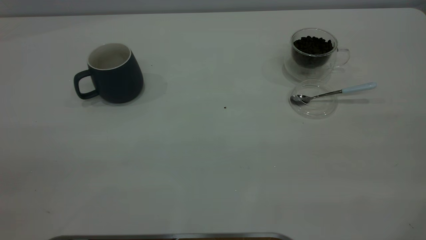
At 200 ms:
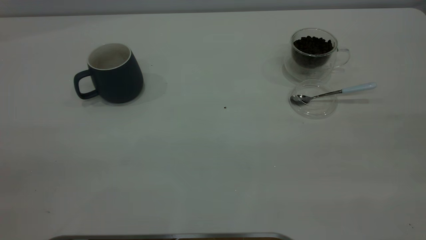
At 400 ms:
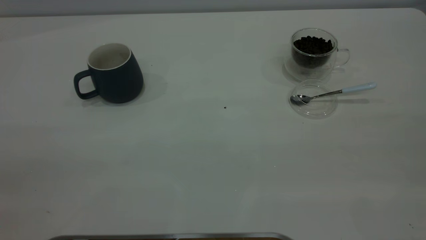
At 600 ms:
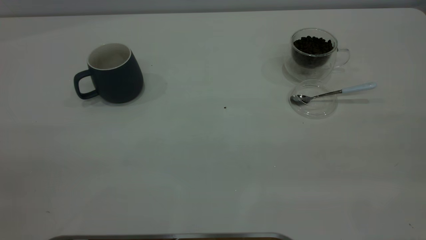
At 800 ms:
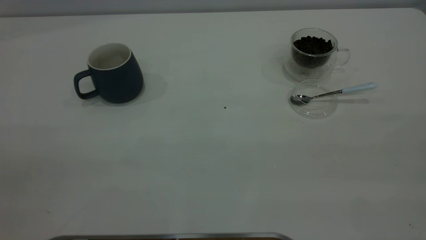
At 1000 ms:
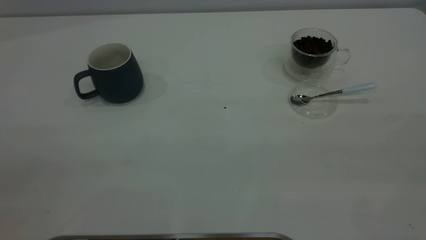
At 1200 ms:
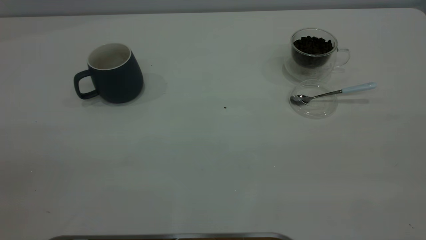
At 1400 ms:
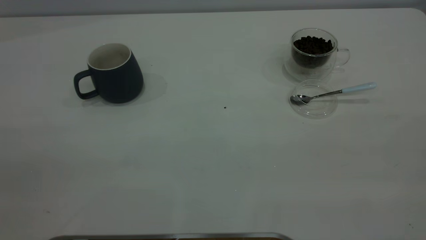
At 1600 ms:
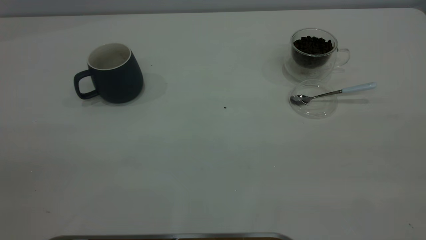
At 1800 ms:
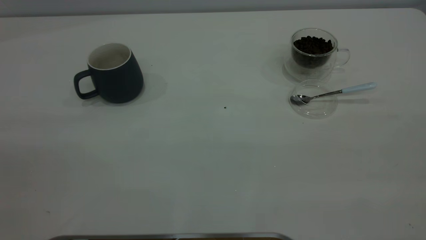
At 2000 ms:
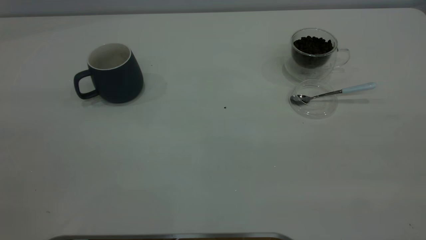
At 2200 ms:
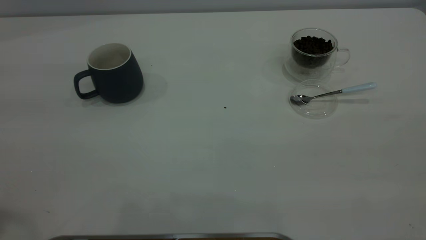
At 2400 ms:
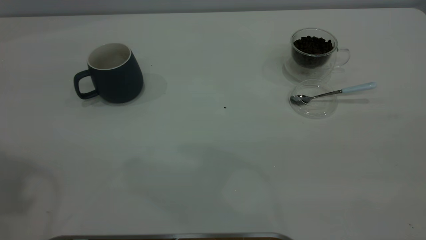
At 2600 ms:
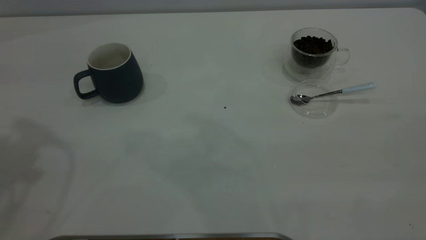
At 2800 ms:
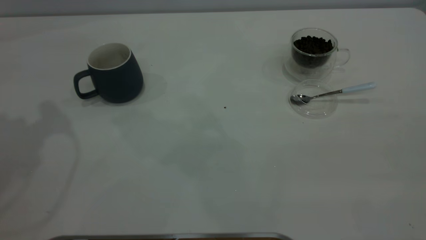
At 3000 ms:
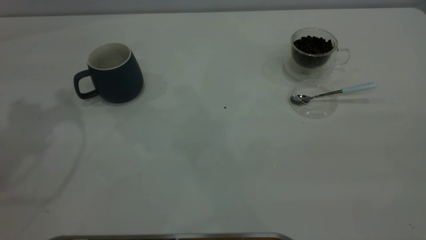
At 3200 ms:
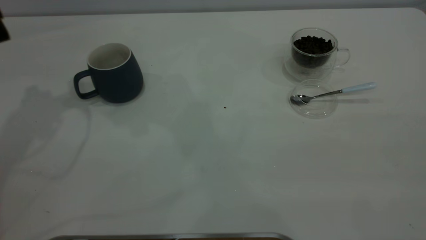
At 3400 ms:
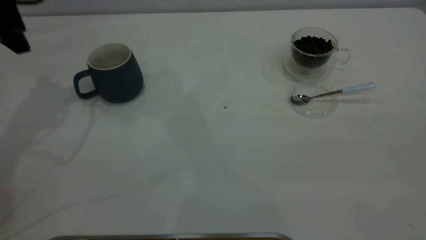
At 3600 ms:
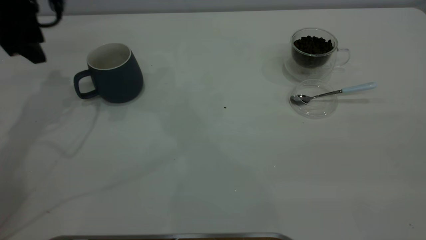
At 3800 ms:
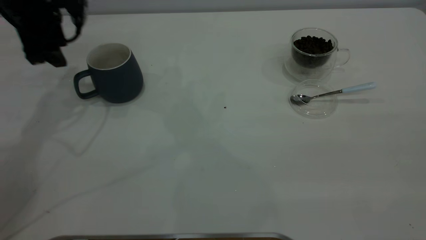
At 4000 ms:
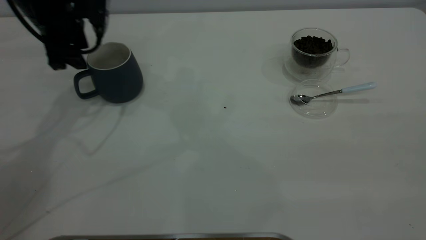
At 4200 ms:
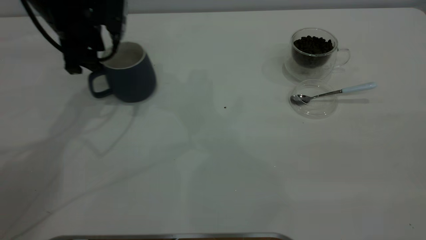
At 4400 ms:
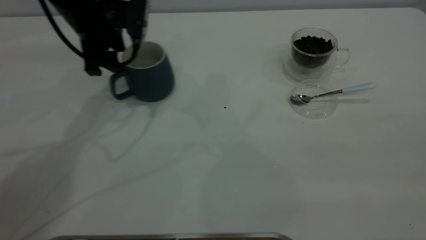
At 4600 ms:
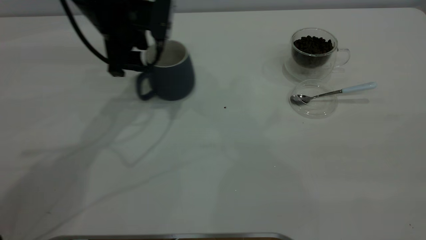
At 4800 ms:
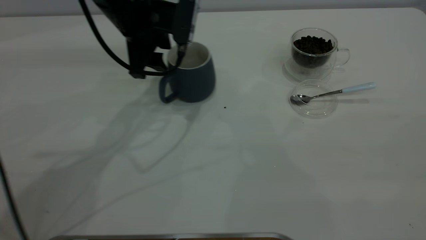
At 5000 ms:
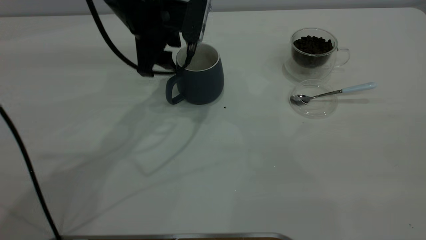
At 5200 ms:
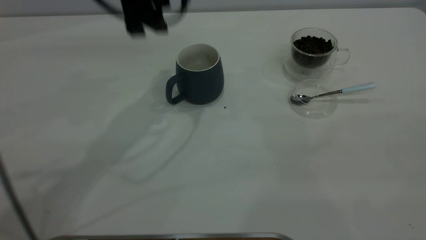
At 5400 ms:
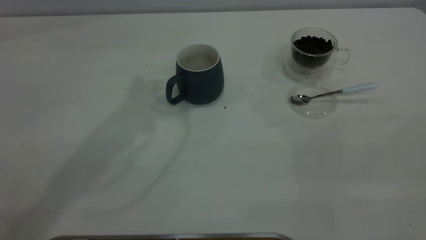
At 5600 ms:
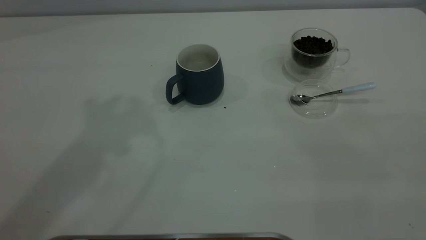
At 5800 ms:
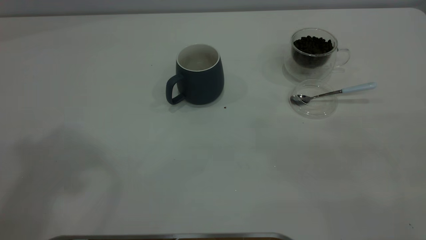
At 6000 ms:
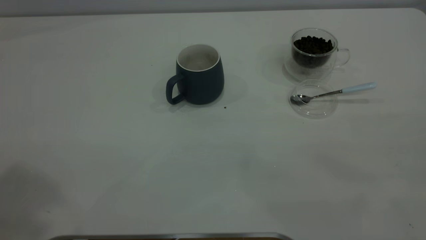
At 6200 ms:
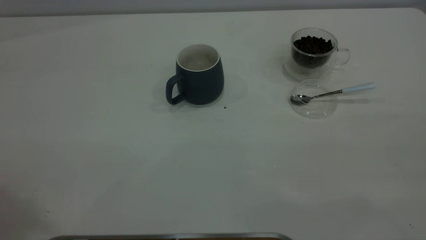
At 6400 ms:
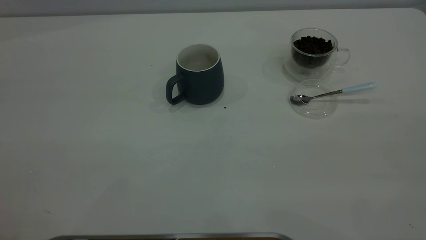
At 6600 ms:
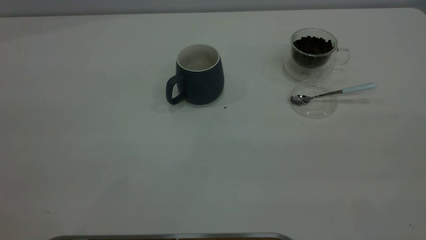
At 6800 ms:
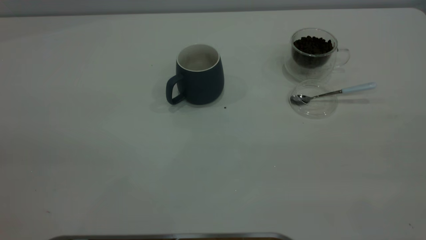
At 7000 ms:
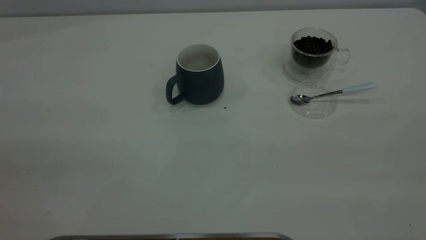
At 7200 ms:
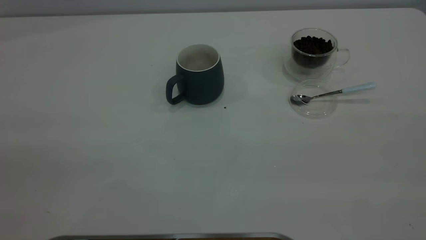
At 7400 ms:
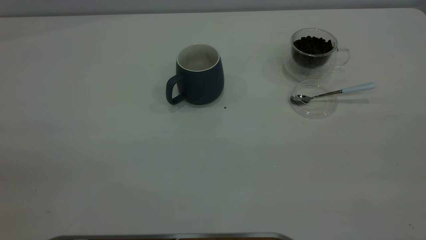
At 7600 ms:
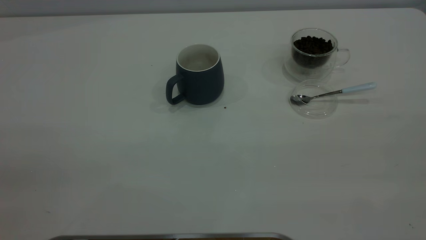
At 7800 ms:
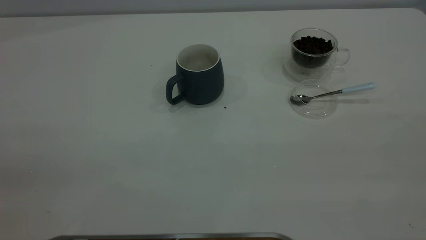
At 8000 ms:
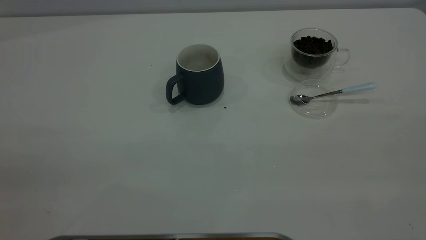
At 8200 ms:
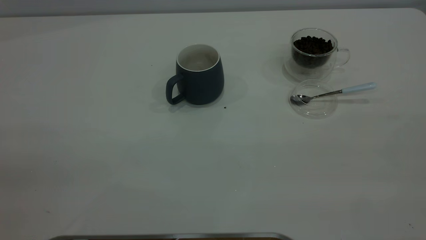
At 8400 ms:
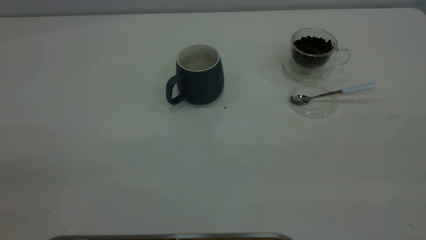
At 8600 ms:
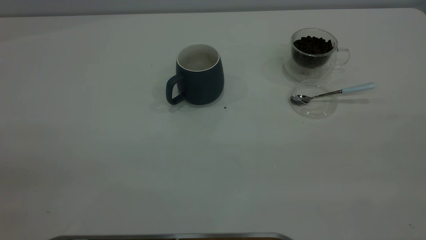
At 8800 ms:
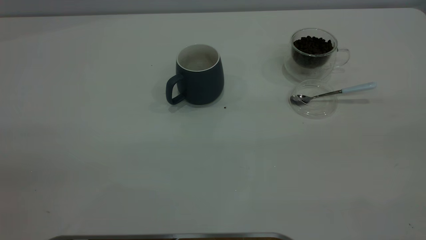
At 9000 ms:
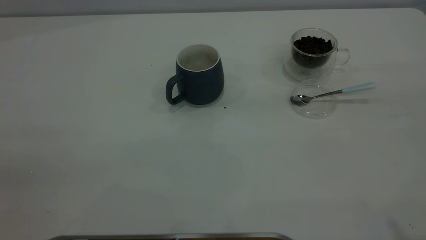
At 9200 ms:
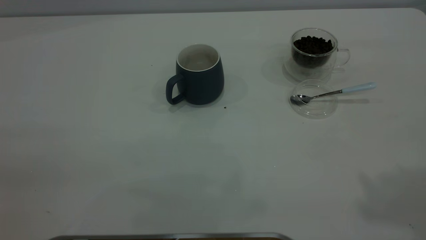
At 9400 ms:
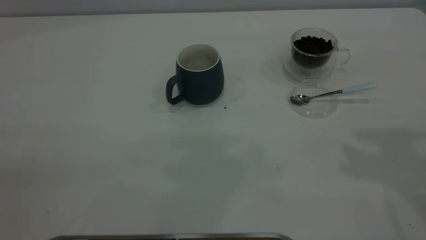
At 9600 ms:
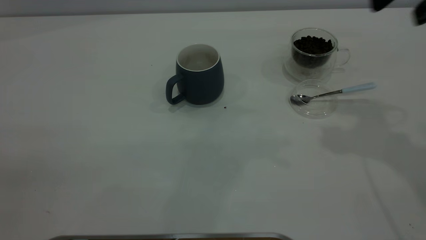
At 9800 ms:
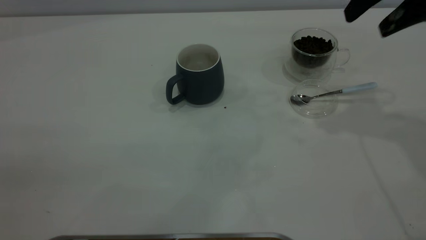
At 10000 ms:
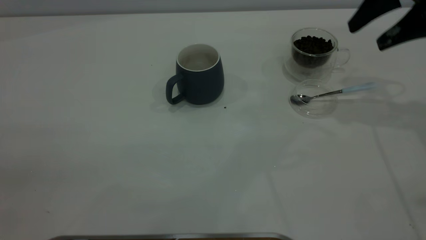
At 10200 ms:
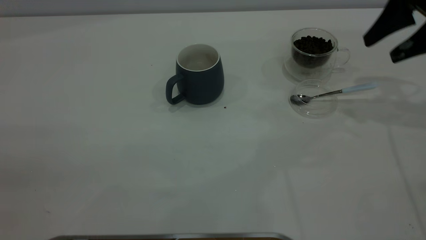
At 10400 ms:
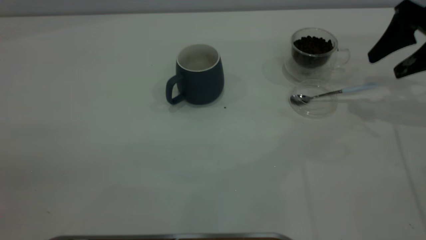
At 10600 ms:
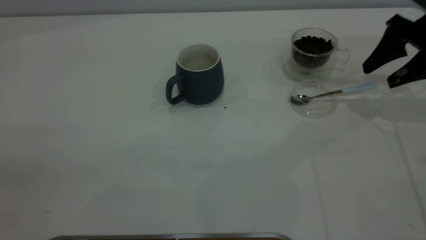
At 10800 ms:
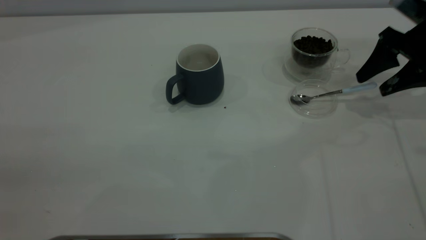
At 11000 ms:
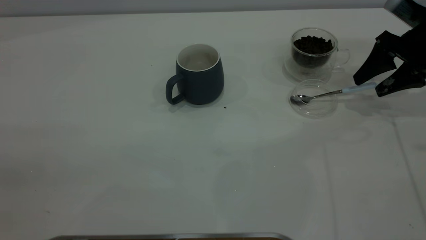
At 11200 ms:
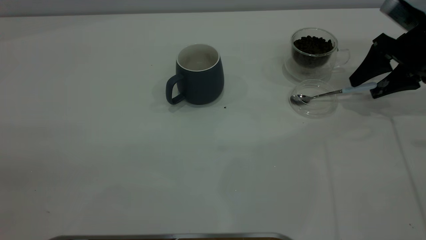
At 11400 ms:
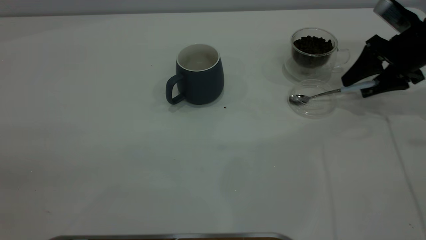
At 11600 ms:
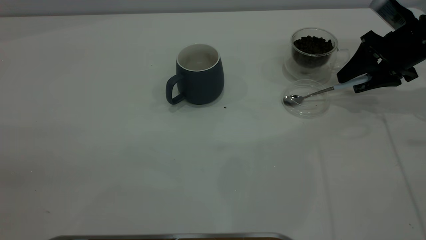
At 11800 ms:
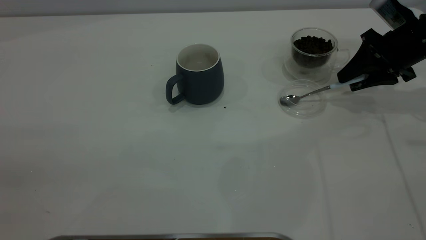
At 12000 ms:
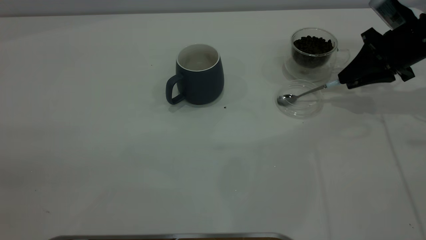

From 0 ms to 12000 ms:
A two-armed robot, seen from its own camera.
Task of the whole recording: the left gripper place the grey cup in the center of the table, the right gripper take the blue spoon from the cup lid and scoop out the coffee beans from the coffee cup and put them into the grey cup, the right gripper put the spoon back into the cup lid.
Step, from 0 ms to 5000 ms: Move the cup to the center of view.
From 0 ms to 1600 ms: Both grippers stay put.
From 3000 ms to 4400 ms: The left gripper shifts some 20 cm downward, to the right and forward.
From 4400 ms to 6000 ms: The left gripper moves upward and backward, some 50 cm.
From 9000 ms to 10400 ms: The right gripper shifts about 40 cm forward and downward.
From 10400 ms to 12000 ms: The right gripper travels downward by roughly 5 cm, and closes its fingers.

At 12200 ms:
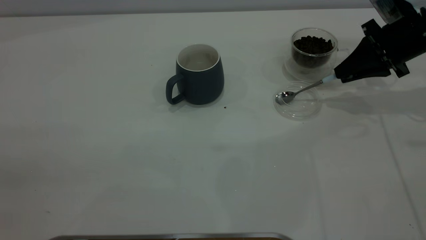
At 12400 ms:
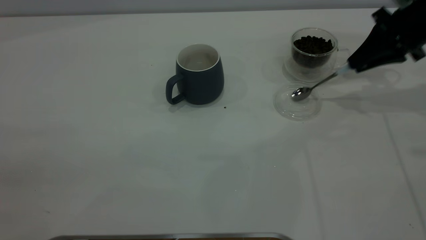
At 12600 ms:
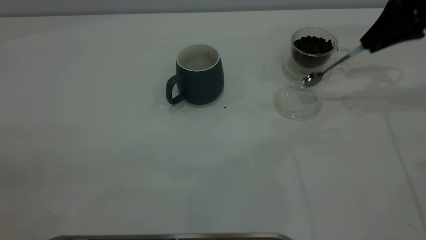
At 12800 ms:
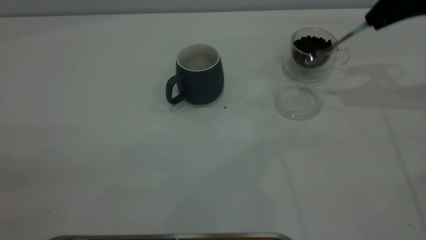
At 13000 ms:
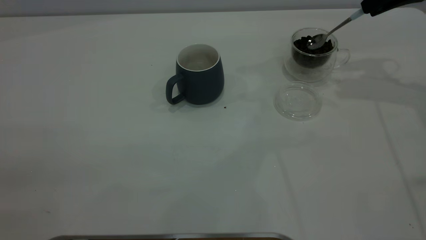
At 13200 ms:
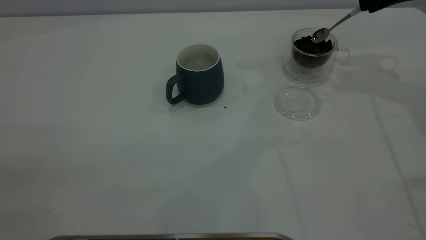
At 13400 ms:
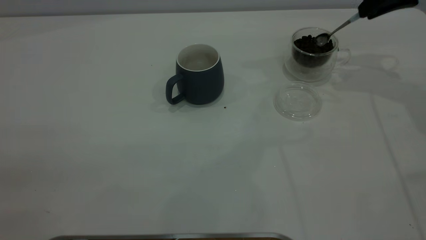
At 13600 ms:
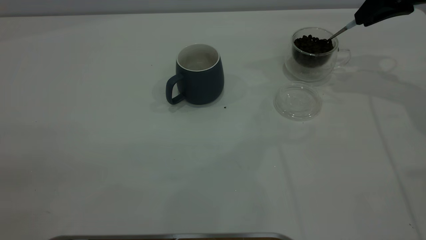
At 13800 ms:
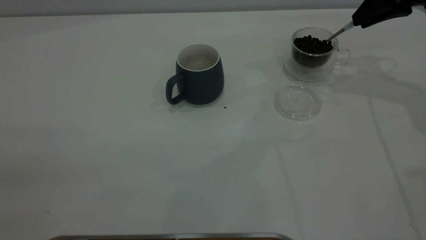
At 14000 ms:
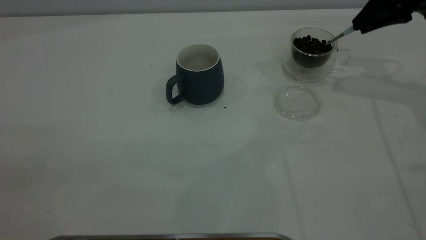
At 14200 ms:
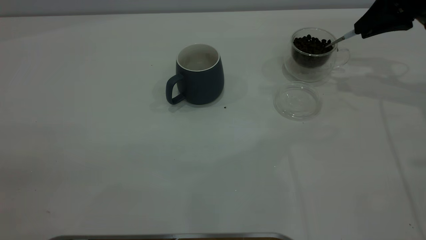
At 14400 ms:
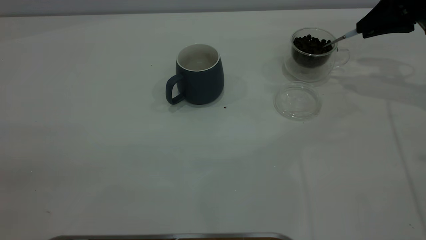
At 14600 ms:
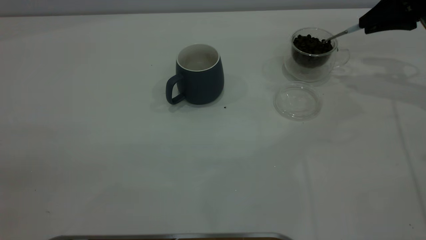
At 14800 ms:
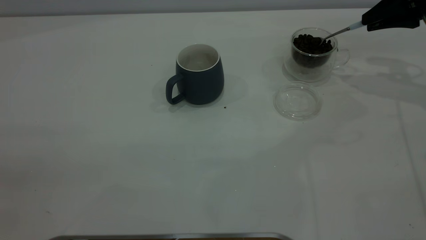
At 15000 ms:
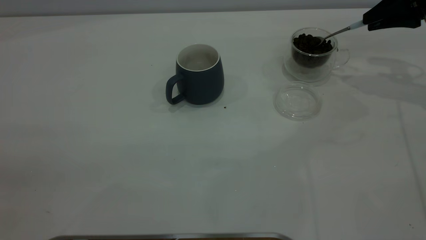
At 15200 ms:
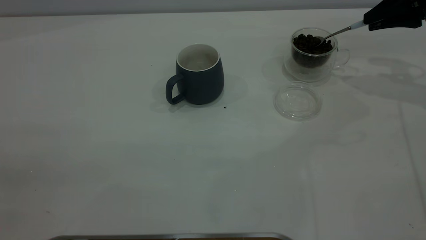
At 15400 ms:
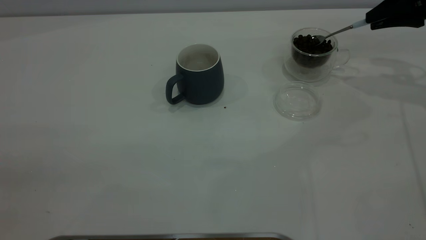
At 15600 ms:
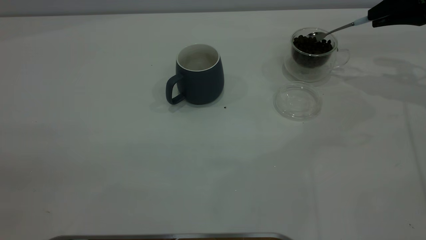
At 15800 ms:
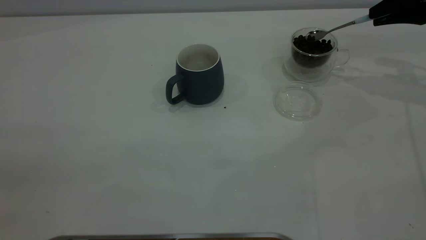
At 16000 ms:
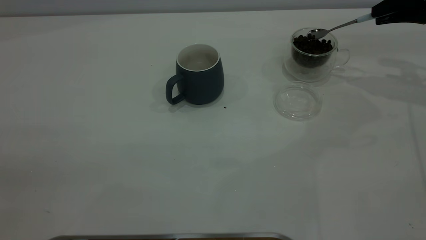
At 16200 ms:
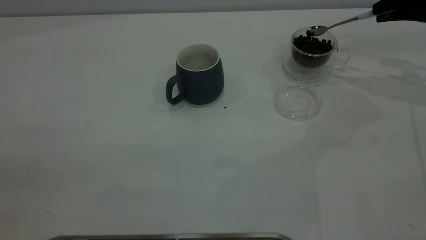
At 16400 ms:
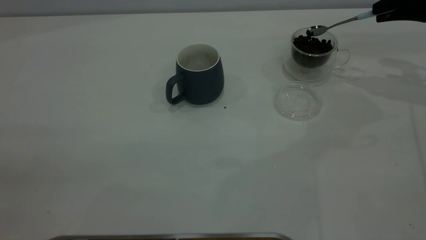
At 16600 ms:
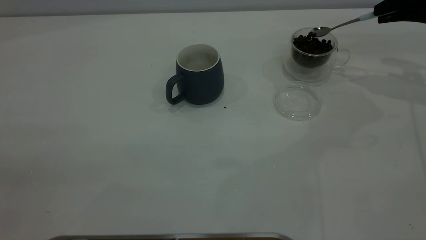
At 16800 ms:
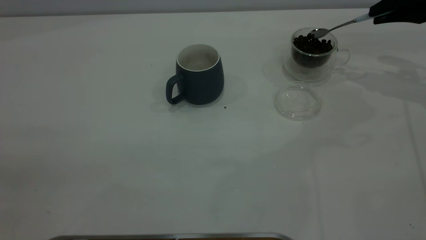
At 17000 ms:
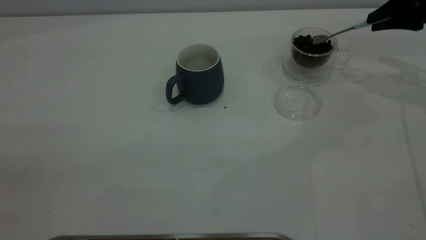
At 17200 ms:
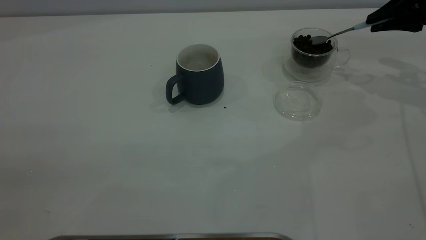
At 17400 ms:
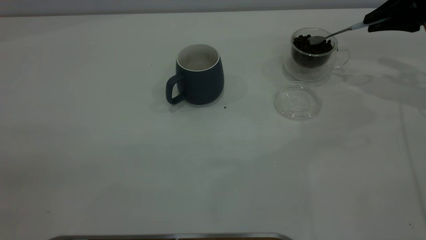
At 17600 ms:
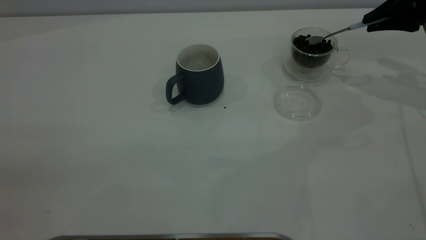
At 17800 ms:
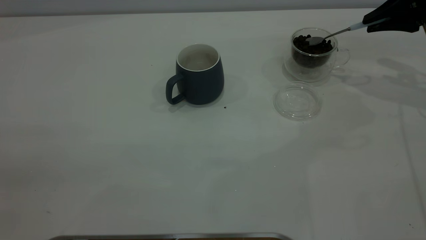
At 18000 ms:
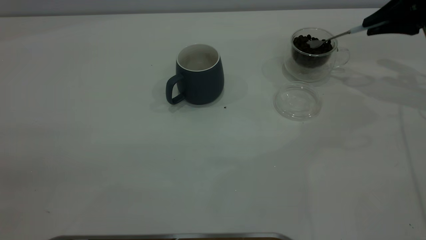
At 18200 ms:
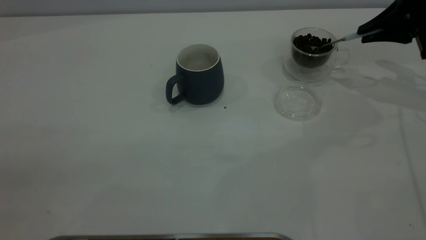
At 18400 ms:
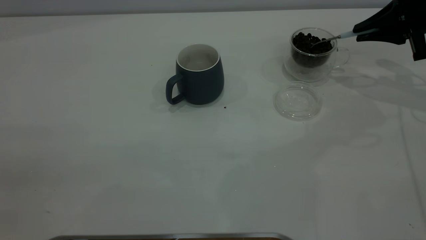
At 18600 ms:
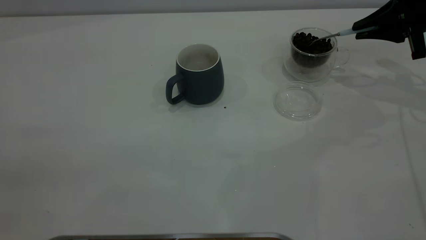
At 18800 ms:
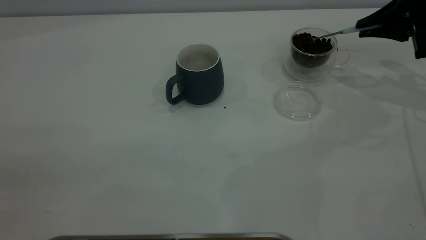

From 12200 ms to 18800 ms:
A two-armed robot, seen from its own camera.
Task of the whole recording: the left gripper place the grey cup in the center of the table, the right gripper take the blue spoon from the cup lid and scoop out the coffee beans from the coffee cup and put them into the grey cup, the right gripper put the spoon back into the cup lid.
From 12200 ms to 13800 ms: The right gripper moves upward, some 10 cm.
From 13800 ms to 15400 ms: The right gripper goes approximately 5 cm to the right.
From 17200 ms to 18800 ms: The grippers make only small movements.
